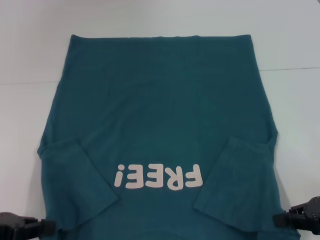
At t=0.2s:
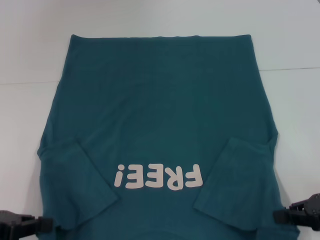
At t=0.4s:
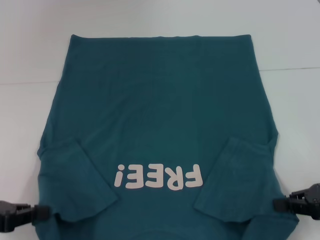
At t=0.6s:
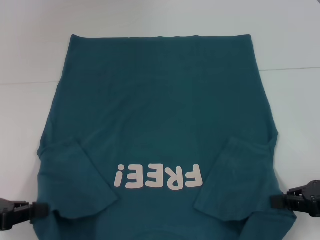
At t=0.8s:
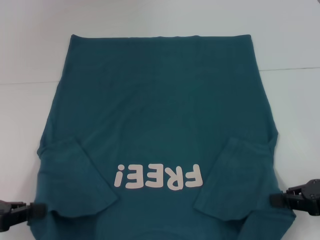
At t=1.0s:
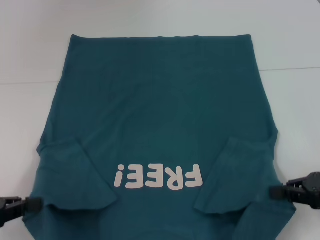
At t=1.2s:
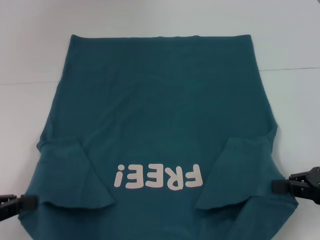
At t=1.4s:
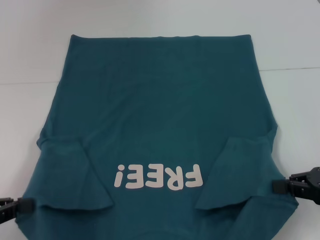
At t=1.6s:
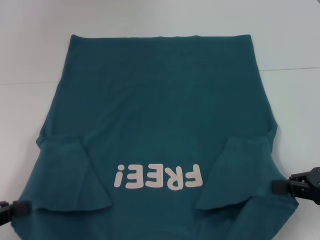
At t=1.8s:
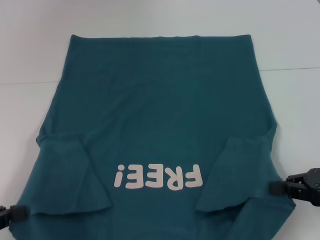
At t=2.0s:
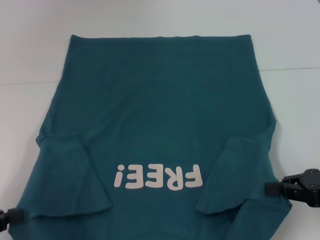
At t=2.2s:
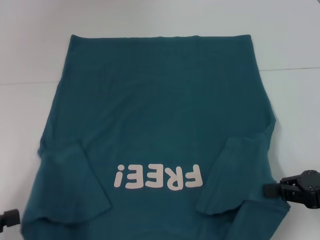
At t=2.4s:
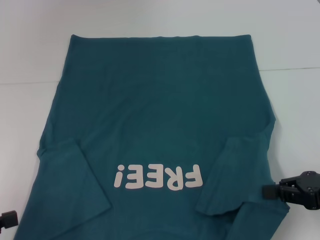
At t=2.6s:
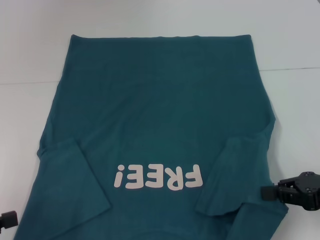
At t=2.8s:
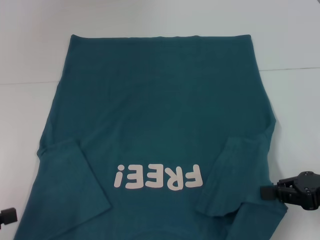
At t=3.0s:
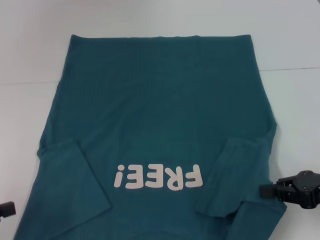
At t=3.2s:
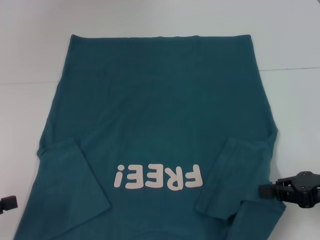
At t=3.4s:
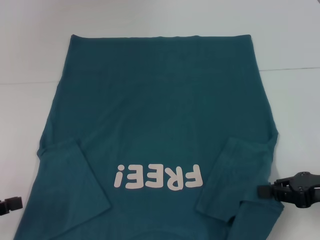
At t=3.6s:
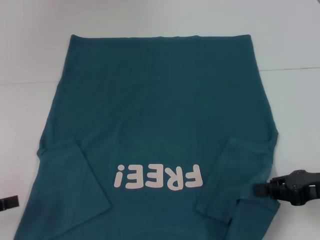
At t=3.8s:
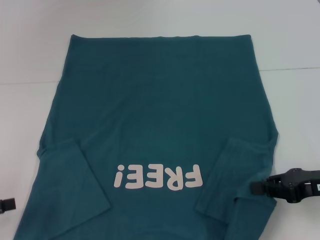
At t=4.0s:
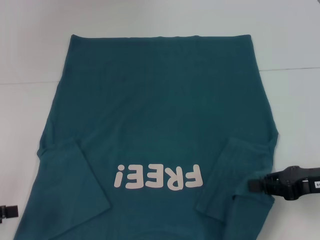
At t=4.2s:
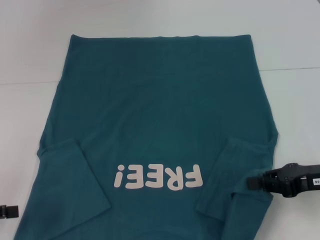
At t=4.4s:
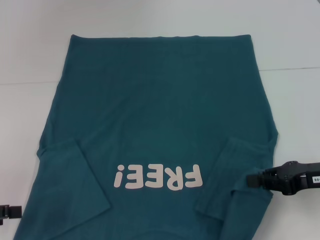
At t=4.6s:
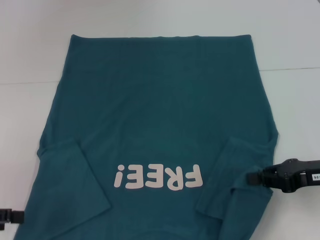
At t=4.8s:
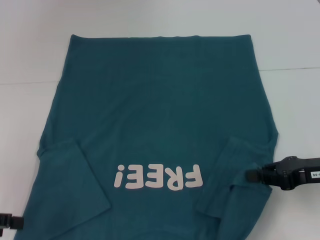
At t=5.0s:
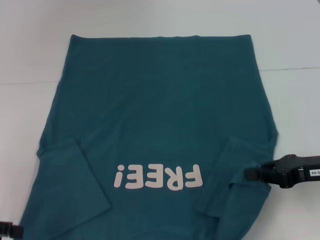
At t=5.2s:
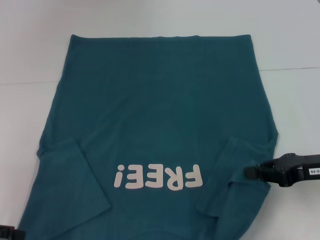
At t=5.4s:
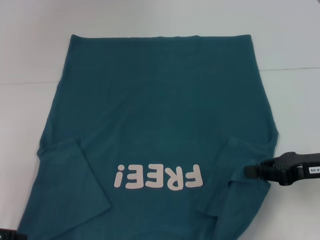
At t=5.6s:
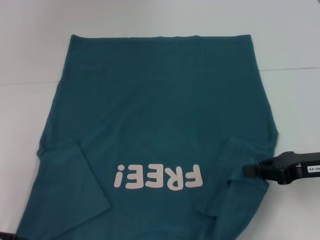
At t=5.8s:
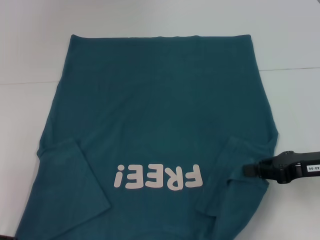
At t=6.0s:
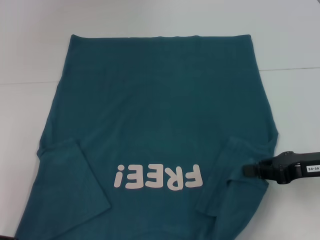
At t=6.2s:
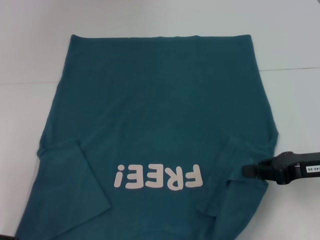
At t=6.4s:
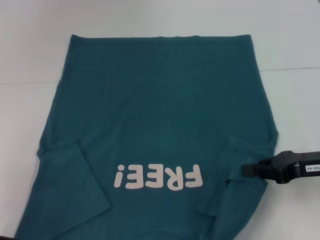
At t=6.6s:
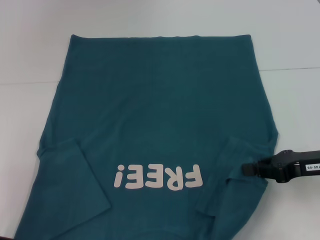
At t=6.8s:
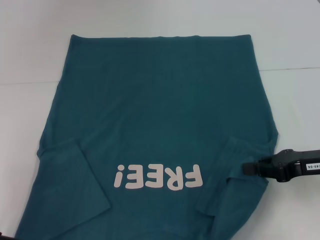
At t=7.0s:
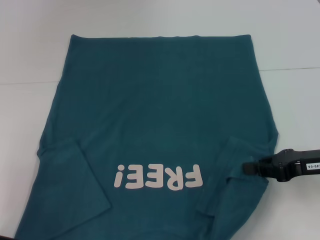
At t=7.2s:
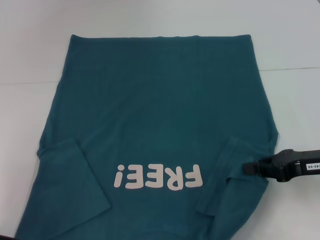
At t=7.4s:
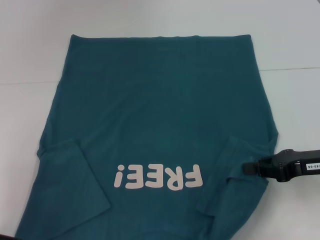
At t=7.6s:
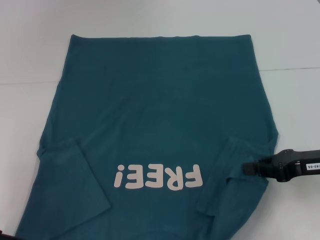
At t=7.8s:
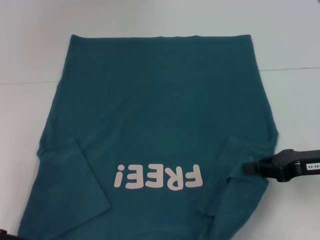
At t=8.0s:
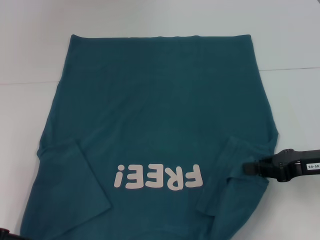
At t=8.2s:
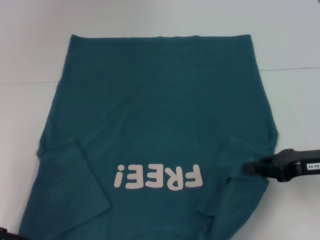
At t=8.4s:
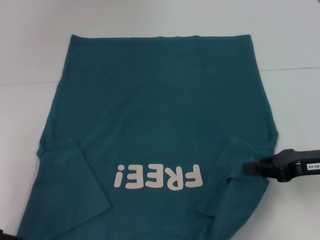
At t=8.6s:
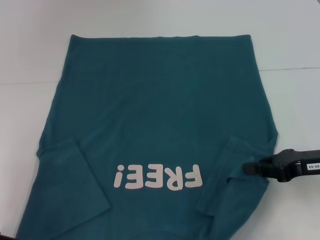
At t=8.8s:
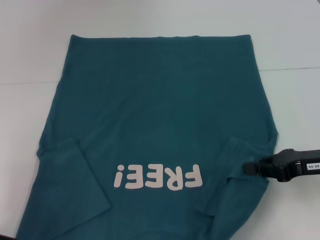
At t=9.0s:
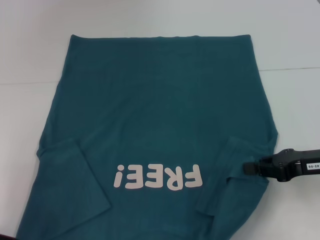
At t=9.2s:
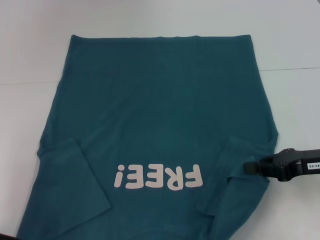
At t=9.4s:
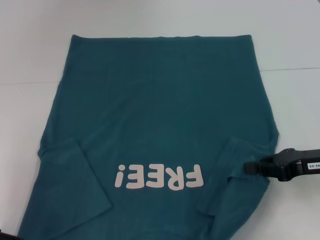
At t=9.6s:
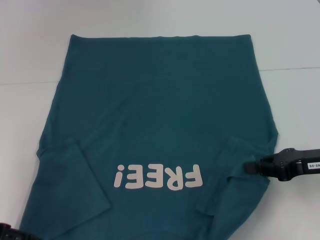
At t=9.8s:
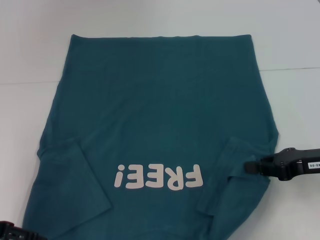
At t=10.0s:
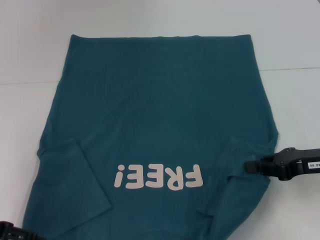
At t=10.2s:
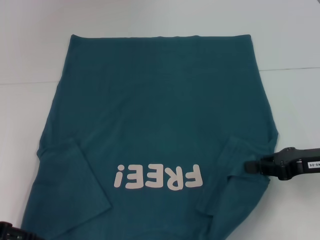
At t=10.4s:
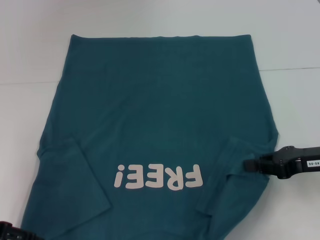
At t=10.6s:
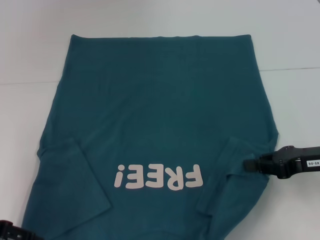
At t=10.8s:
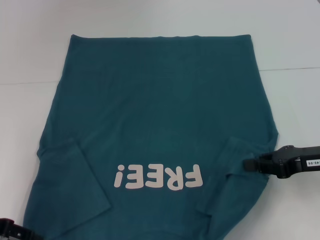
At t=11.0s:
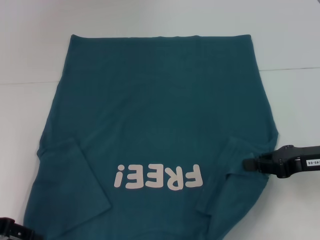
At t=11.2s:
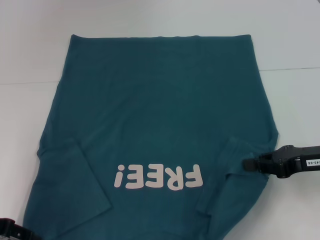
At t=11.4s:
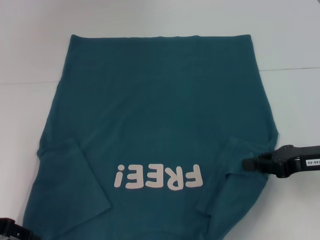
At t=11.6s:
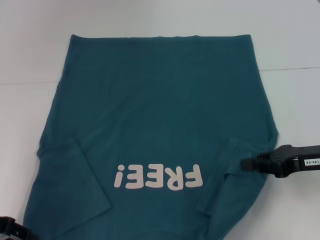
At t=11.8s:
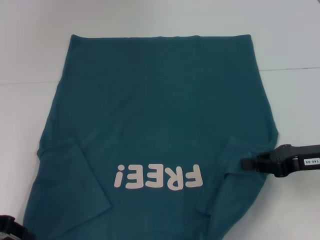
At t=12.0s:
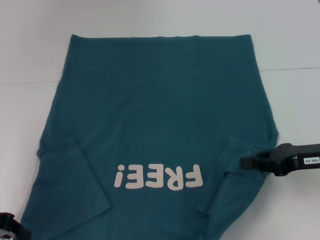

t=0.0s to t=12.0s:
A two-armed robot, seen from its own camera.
t=0.0s to t=1.6s: The grippers move only a little.
t=1.6s to t=3.0s: The grippers move only a little.
t=4.4s to t=6.0s: The grippers move only a little.
t=6.0s to t=7.6s: The grippers make only small movements.
t=7.6s to t=9.0s: Neither gripper changes place.
t=9.0s to t=10.4s: The grippers make only small movements.

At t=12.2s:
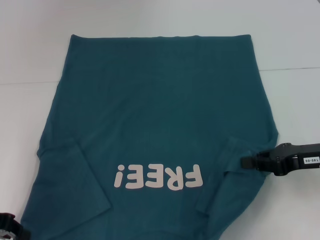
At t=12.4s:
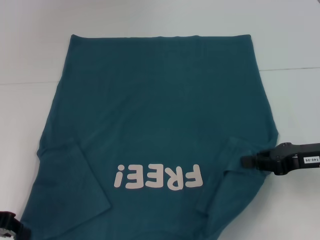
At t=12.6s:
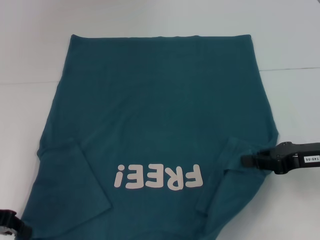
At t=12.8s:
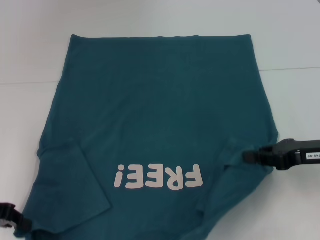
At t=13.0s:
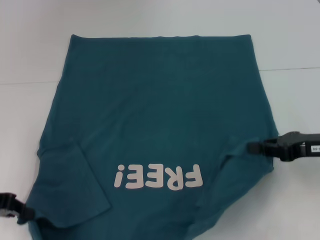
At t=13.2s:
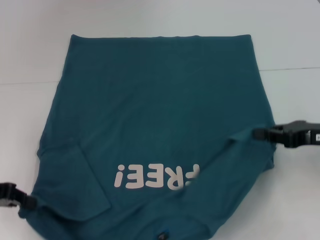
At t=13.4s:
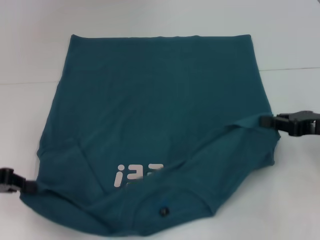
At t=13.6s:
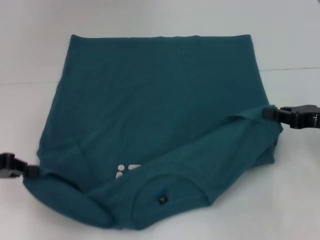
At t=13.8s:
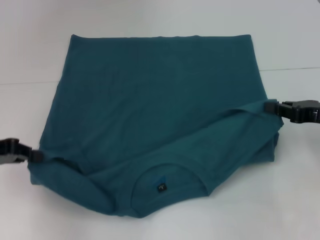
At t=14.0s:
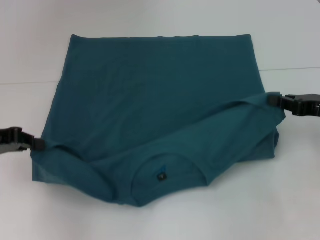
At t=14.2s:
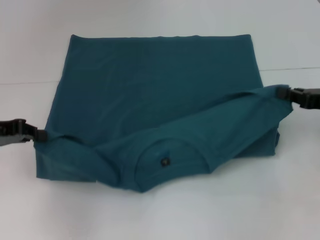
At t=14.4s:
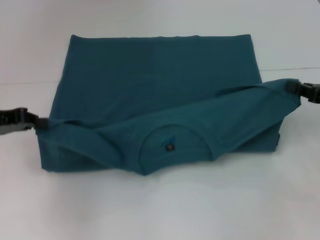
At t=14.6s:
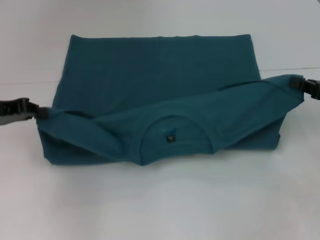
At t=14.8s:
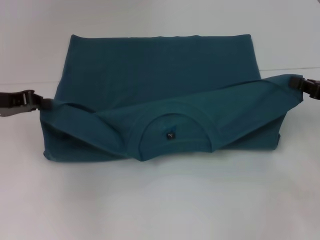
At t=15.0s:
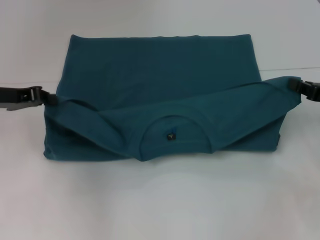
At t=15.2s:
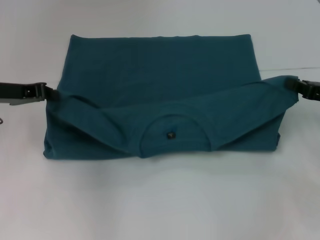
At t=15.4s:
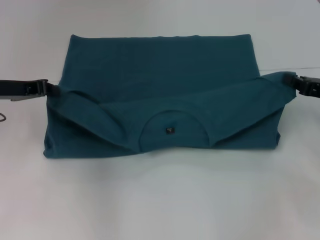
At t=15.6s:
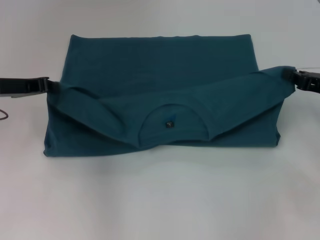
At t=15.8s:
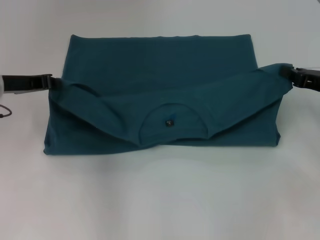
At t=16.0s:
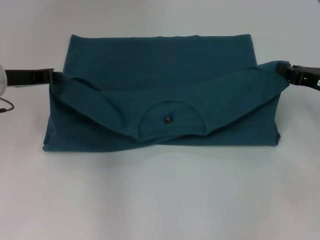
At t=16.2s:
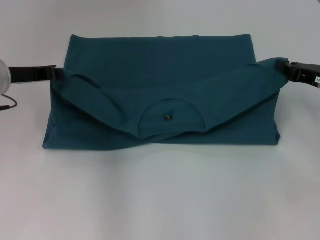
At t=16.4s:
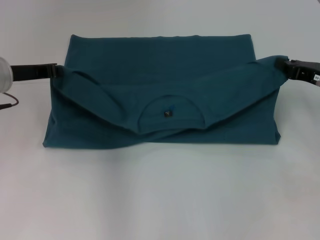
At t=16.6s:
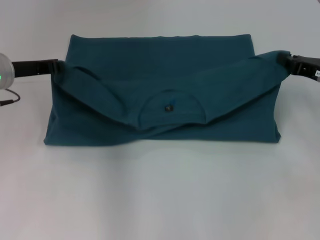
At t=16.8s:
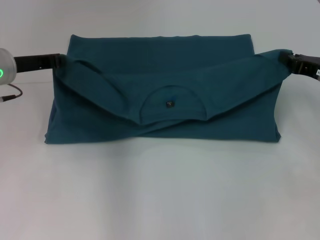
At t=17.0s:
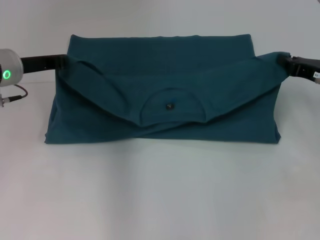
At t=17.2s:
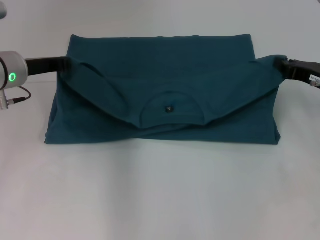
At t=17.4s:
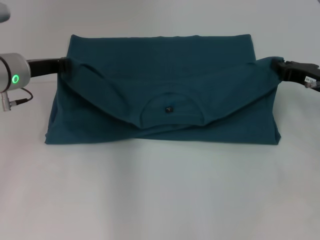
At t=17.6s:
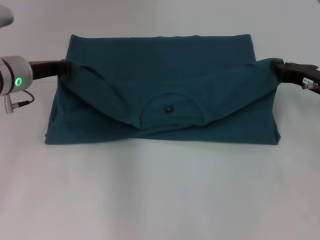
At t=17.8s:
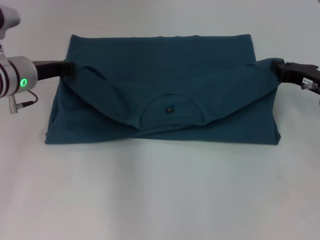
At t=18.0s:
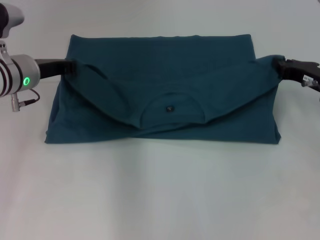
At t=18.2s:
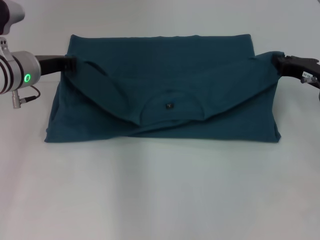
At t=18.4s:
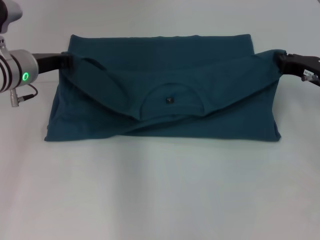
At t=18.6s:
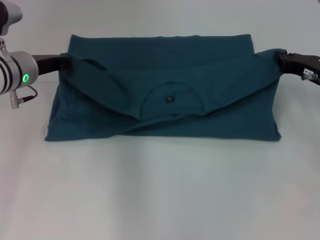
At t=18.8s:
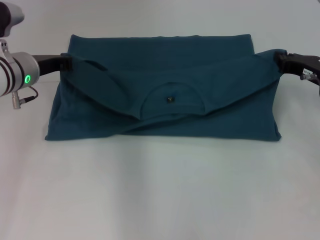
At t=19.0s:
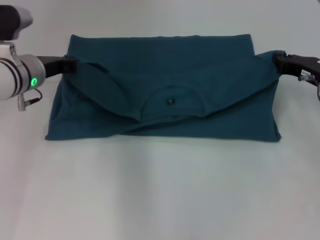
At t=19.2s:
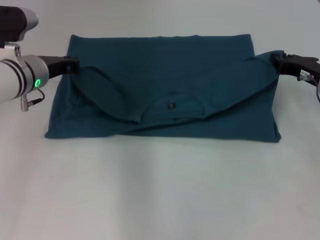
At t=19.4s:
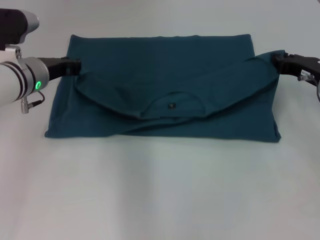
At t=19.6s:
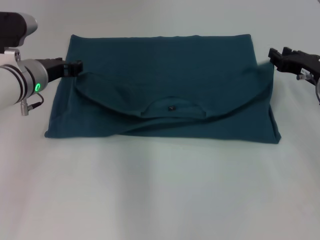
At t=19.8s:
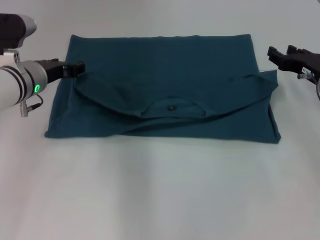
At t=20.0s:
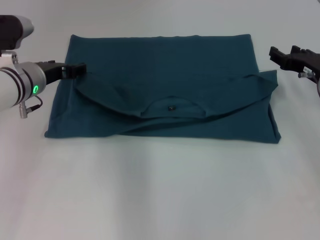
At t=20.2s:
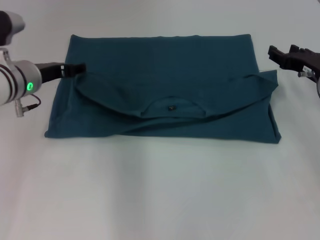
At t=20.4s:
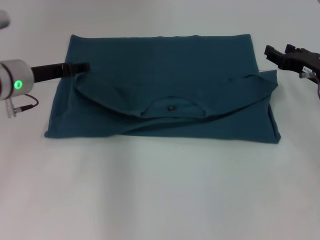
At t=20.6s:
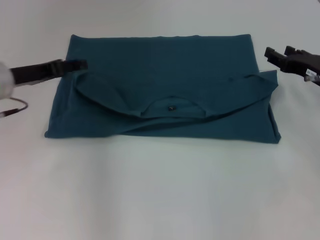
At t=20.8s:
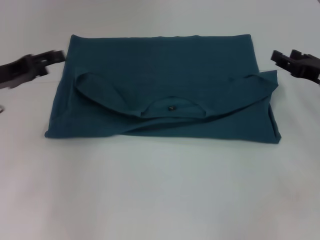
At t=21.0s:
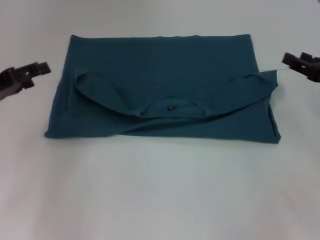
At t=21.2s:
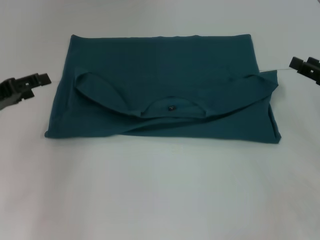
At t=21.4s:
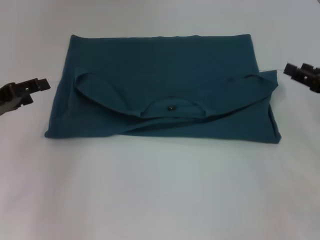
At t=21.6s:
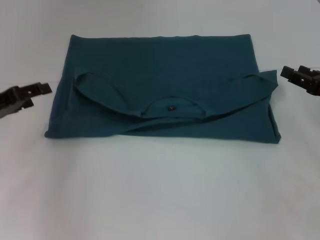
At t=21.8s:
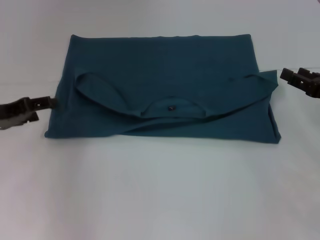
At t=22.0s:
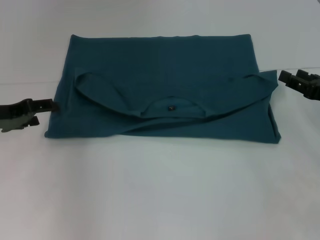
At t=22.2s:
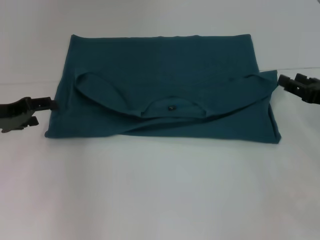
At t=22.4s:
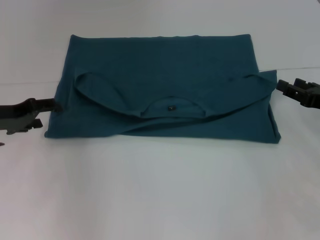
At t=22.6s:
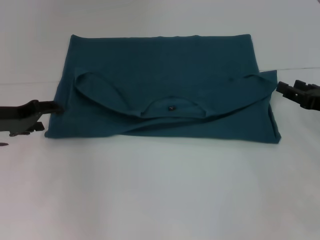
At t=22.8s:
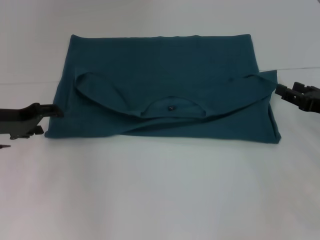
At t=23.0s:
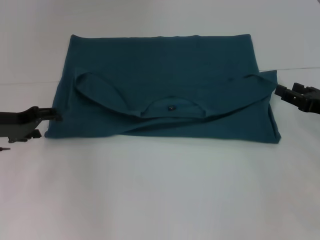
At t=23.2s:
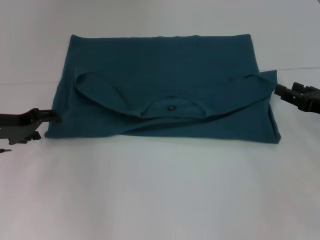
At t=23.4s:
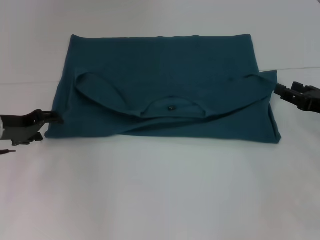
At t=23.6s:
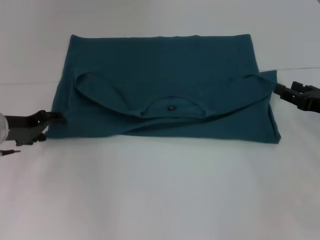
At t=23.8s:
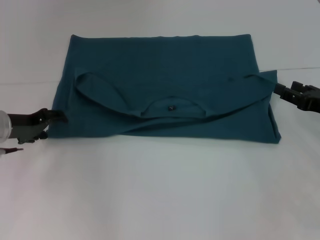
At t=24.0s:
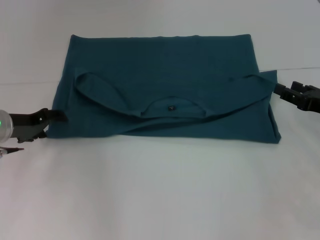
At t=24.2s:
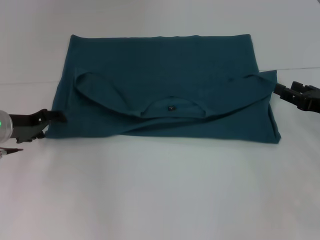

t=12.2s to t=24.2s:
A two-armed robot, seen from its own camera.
Step, t=12.2s to t=19.6s: Fold the clothes to the left.
Step, t=12.2s to t=19.6s: Fold the clothes to the right.
t=12.2s to t=13.8s: The left gripper shifts by roughly 5 cm.
t=13.8s to t=15.2s: The left gripper is displaced forward by approximately 5 cm.
t=15.2s to t=16.6s: The grippers stay close to where they were, moving slightly.
t=16.6s to t=18.2s: The grippers move only a little.
t=18.2s to t=19.8s: The left gripper opens up. The right gripper opens.
t=19.8s to t=21.2s: The right gripper moves backward and to the right, about 10 cm. Meanwhile the left gripper heads to the left and backward, covering about 15 cm, and opens its fingers.
t=21.2s to t=22.6s: The left gripper shifts by some 5 cm.
t=22.6s to t=24.2s: There are only small adjustments of the grippers.
